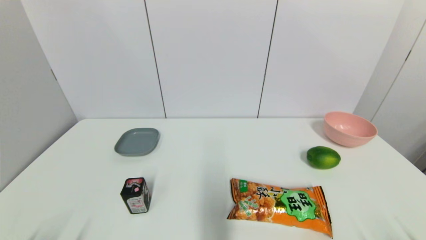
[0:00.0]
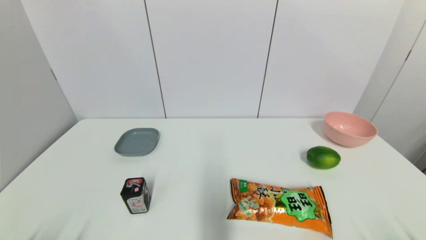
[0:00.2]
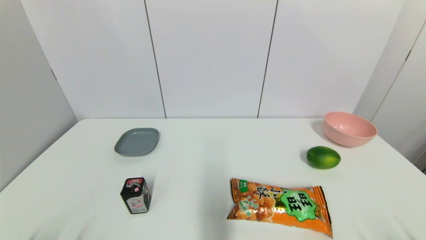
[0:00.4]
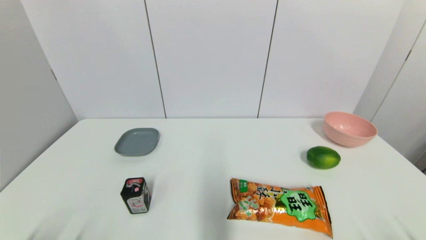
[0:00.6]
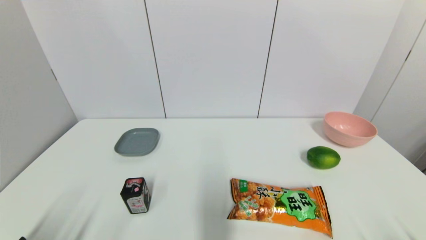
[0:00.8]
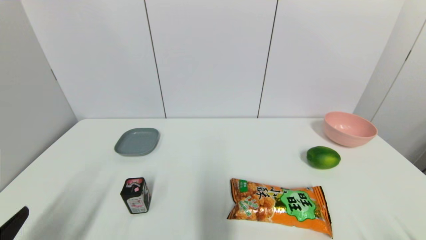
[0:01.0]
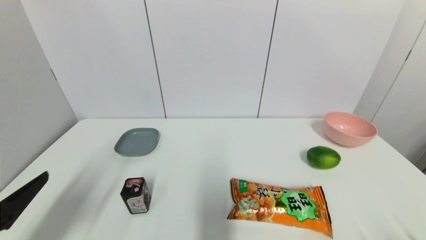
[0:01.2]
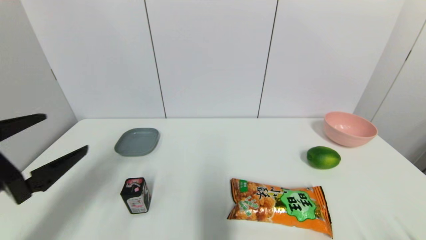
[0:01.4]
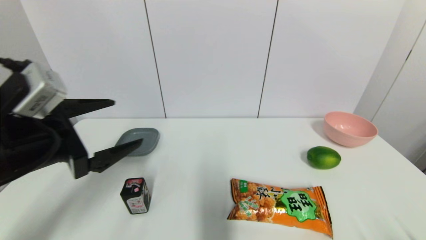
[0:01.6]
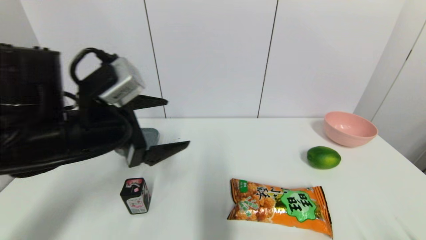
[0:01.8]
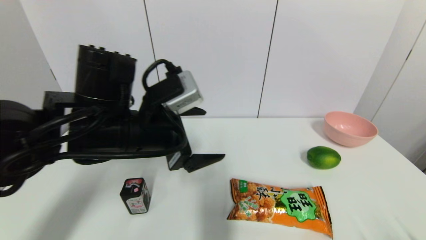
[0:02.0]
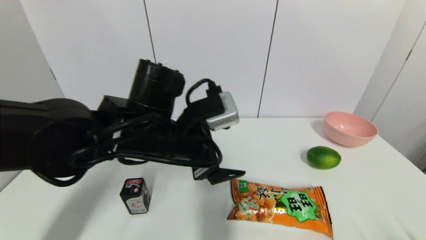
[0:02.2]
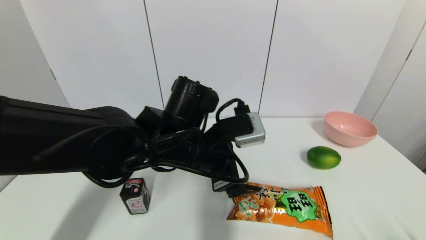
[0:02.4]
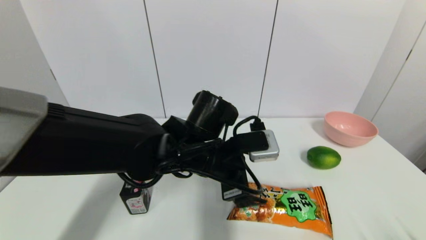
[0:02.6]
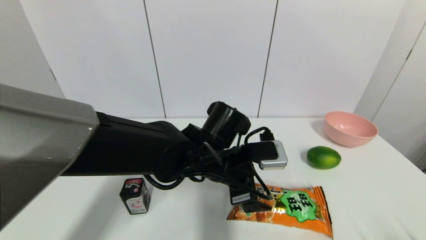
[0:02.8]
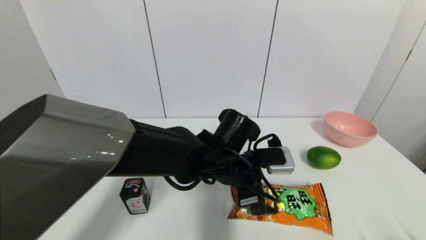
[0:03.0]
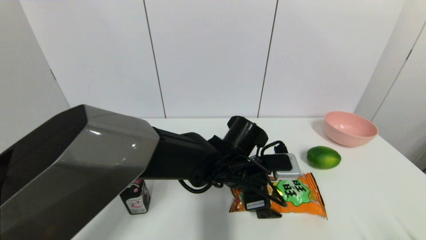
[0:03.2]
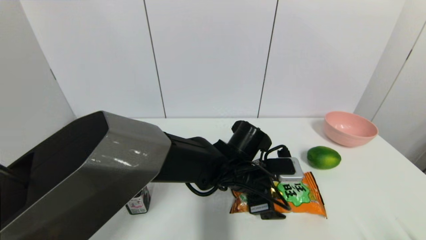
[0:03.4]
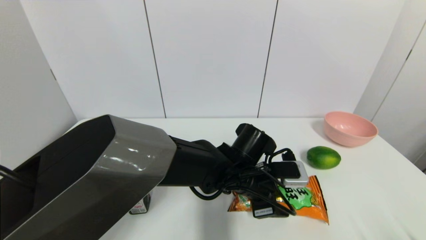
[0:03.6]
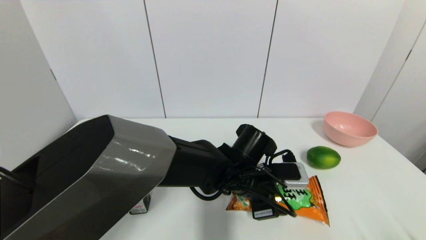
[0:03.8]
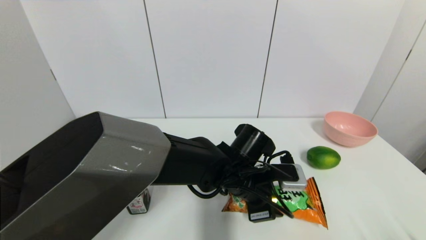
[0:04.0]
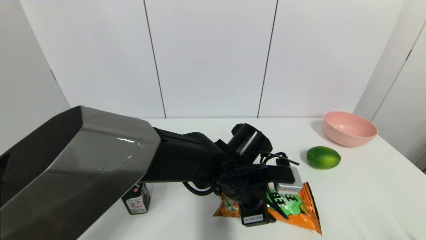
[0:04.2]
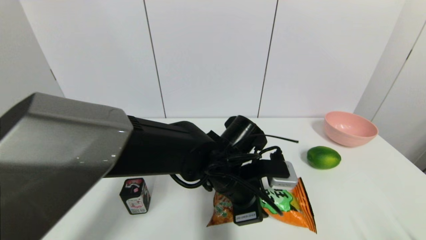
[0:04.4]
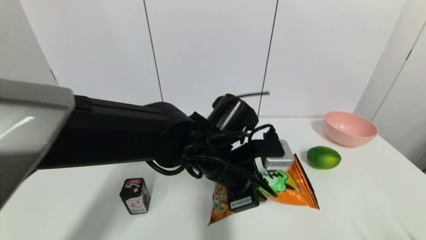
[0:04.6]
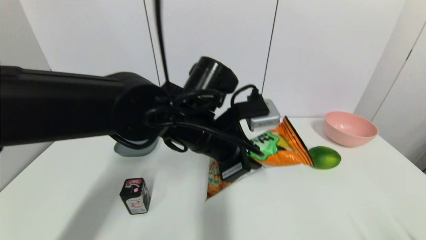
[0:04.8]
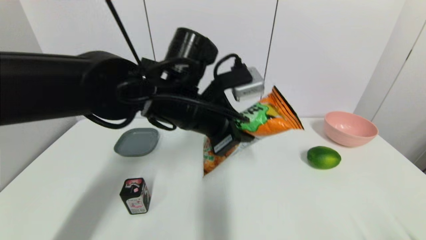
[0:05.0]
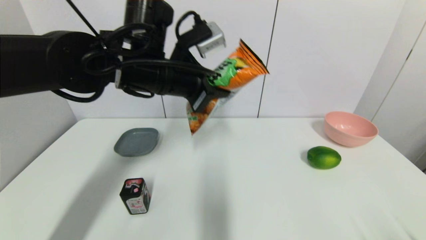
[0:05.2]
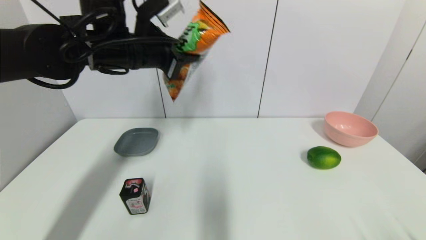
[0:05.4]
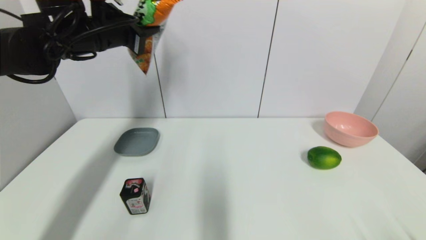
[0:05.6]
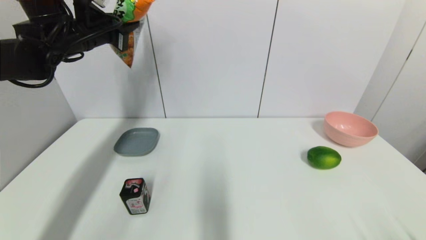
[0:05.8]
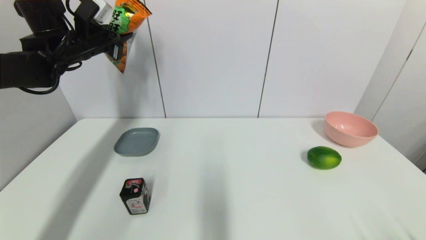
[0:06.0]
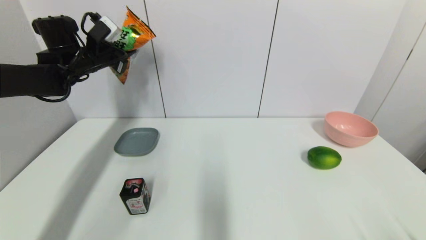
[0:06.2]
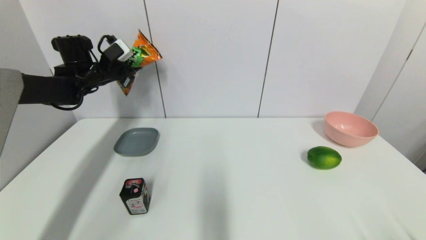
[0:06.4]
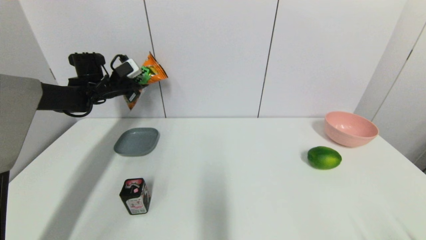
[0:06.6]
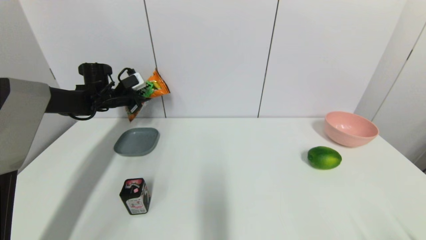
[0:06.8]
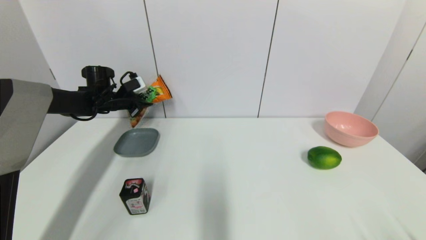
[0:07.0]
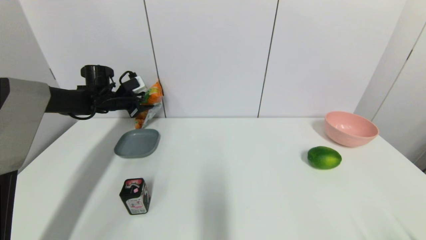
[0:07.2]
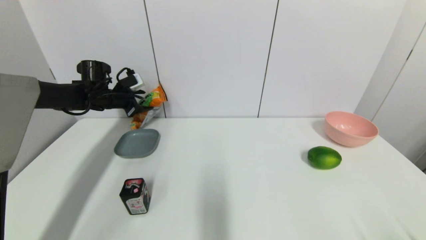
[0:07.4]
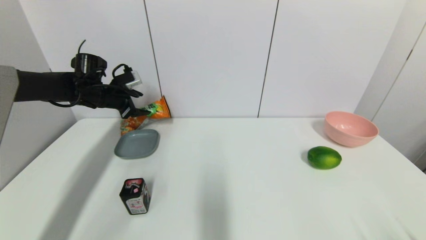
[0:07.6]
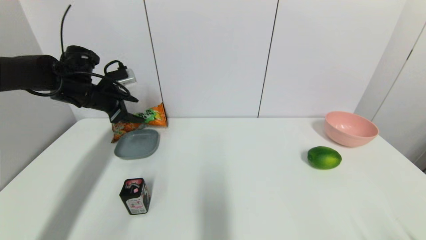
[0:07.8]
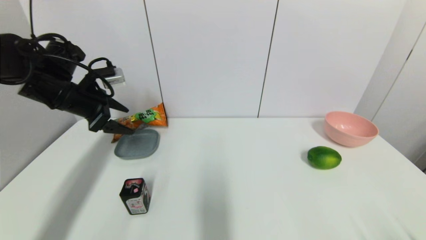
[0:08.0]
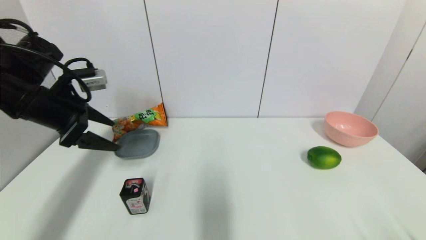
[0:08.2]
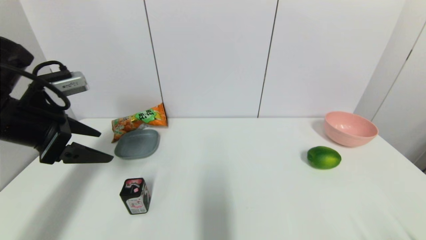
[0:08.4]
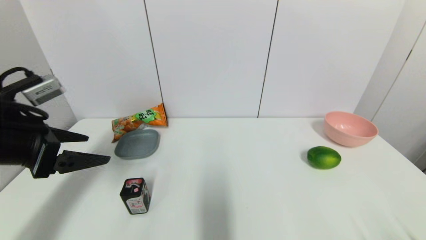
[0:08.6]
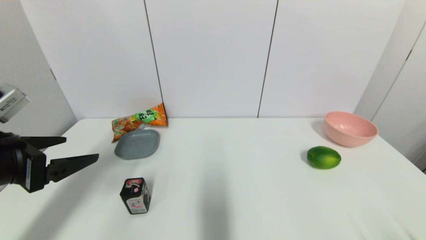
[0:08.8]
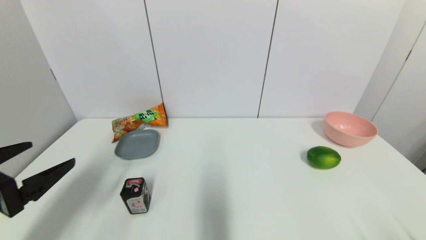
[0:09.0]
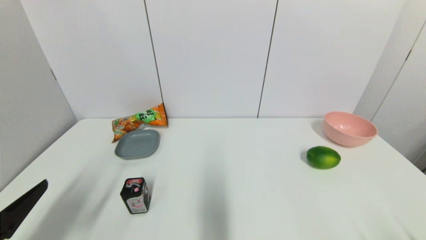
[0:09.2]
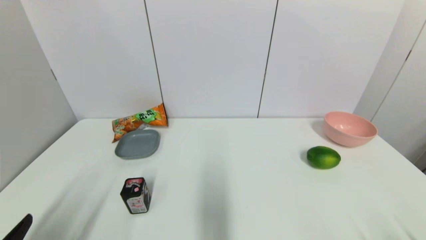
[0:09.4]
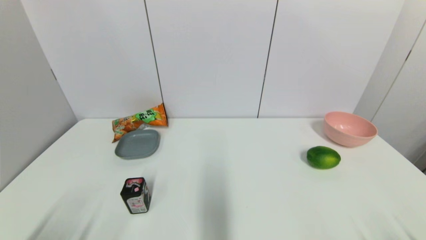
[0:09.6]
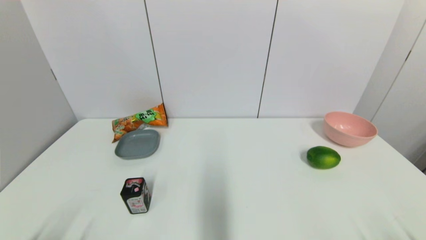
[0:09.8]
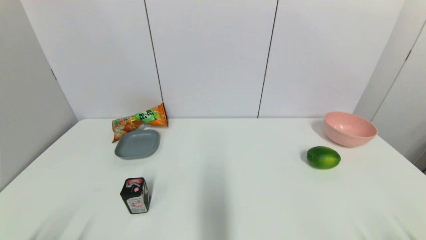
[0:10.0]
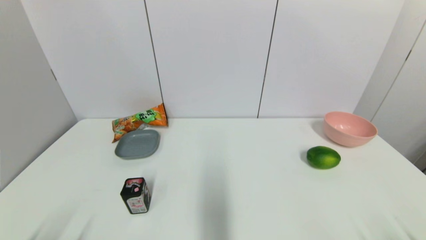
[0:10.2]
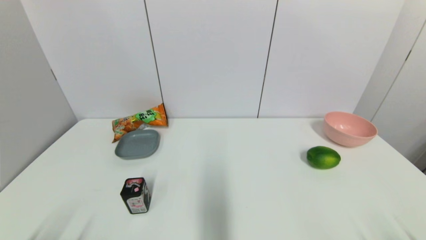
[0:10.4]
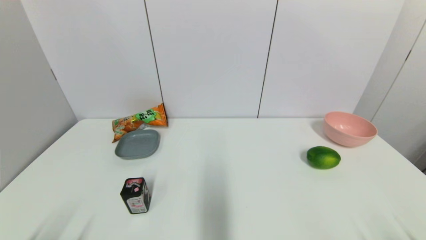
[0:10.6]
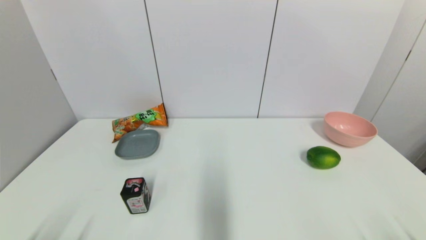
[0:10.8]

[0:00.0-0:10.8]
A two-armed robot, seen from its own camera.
Step, 0:00.8 to 0:04.2: Grasp the cookie with left gripper.
Step, 0:04.4 to 0:07.6: Place the cookie on the table with left gripper.
0:00.0 to 0:01.6: The left gripper heads forward and upward, covering approximately 25 cm.
0:01.6 to 0:03.0: The left gripper heads to the right and downward, covering roughly 30 cm.
0:03.0 to 0:04.6: The left gripper closes up.
0:04.6 to 0:06.2: The left gripper moves to the left and forward, about 35 cm.
0:06.2 to 0:07.8: The left gripper is displaced backward by about 5 cm, and opens its fingers.
0:07.8 to 0:09.2: The left gripper heads backward, covering some 35 cm.
0:09.2 to 0:10.8: The left gripper is displaced downward and backward by approximately 10 cm.

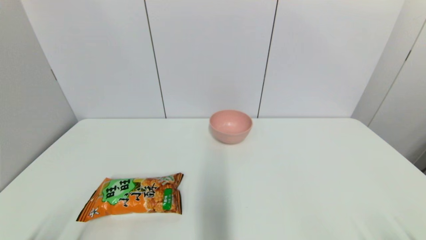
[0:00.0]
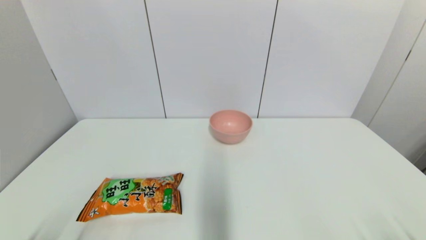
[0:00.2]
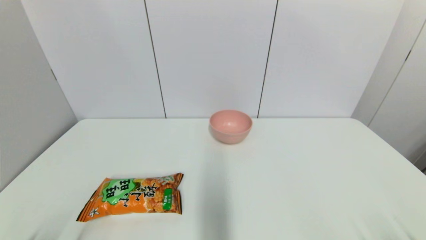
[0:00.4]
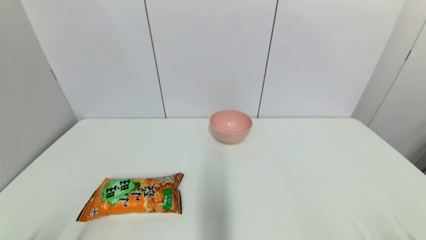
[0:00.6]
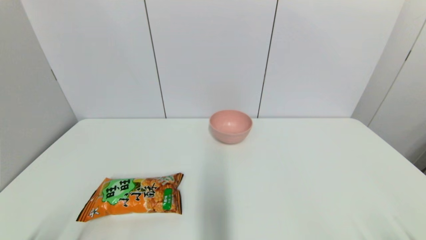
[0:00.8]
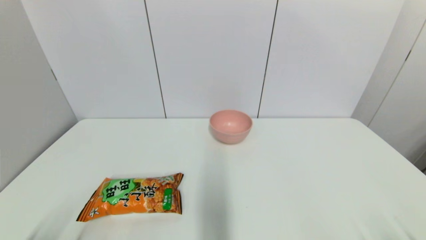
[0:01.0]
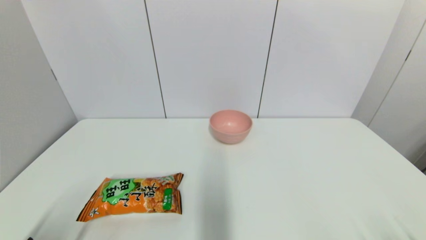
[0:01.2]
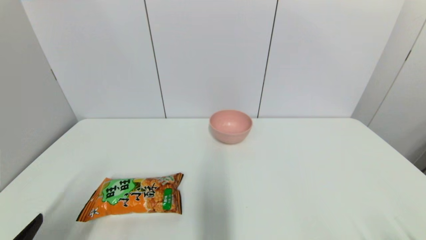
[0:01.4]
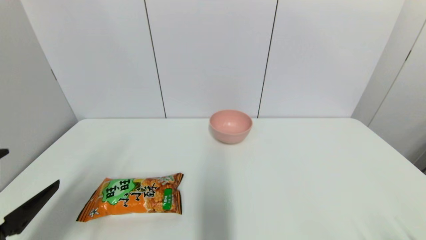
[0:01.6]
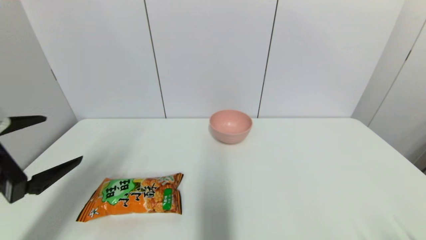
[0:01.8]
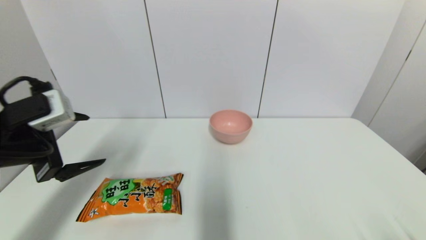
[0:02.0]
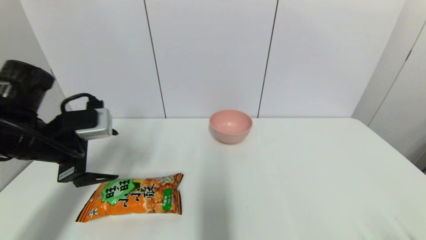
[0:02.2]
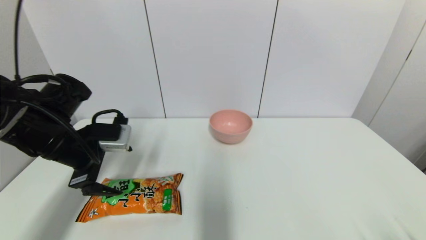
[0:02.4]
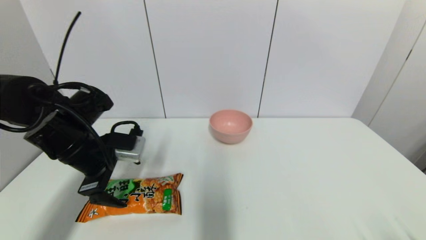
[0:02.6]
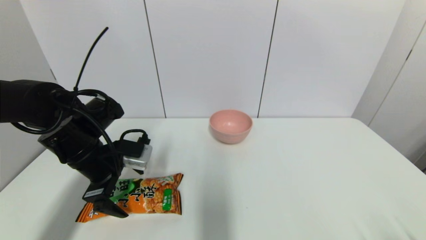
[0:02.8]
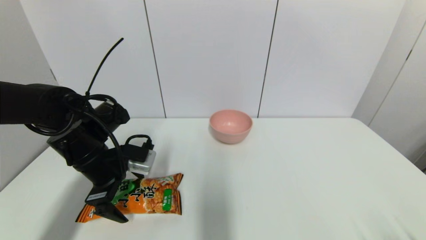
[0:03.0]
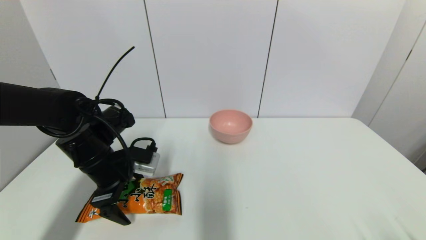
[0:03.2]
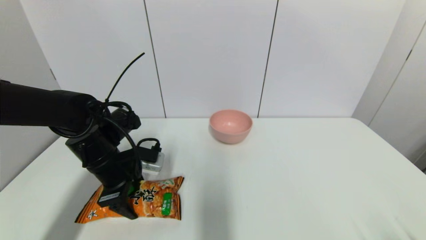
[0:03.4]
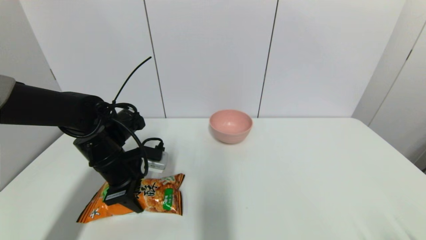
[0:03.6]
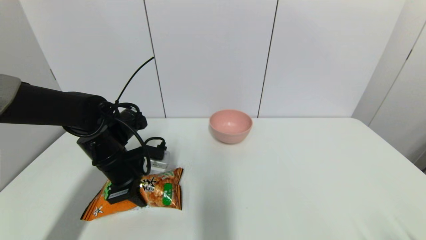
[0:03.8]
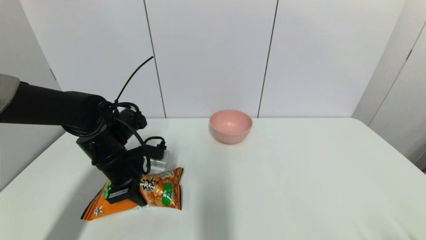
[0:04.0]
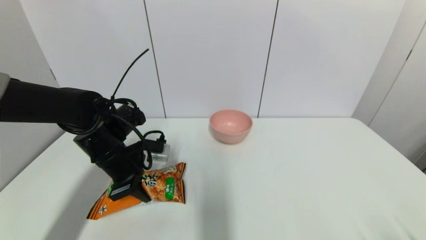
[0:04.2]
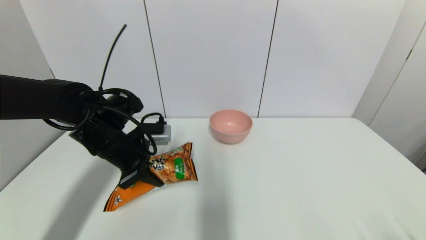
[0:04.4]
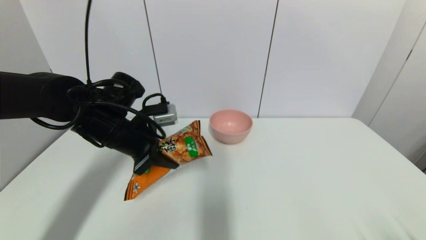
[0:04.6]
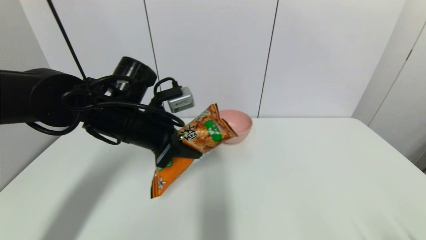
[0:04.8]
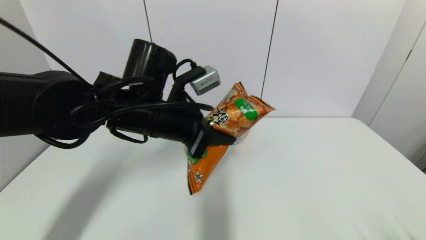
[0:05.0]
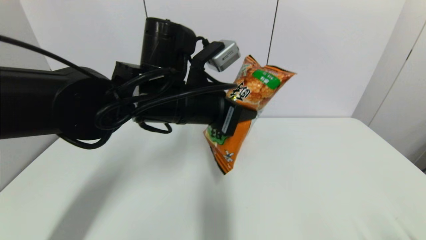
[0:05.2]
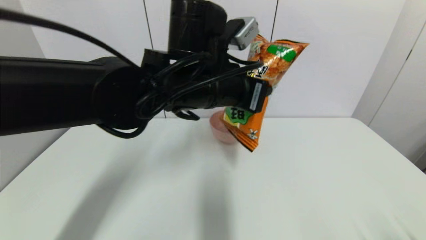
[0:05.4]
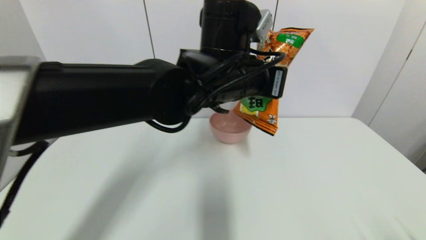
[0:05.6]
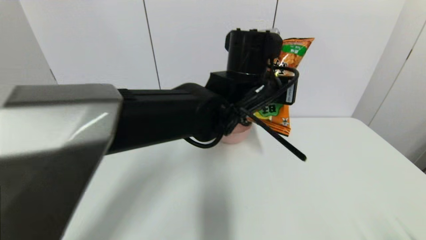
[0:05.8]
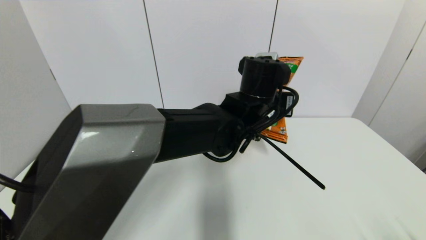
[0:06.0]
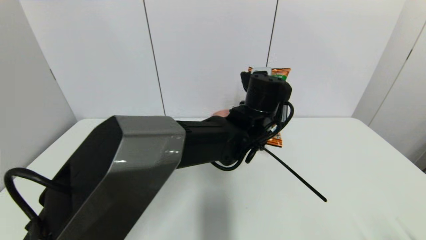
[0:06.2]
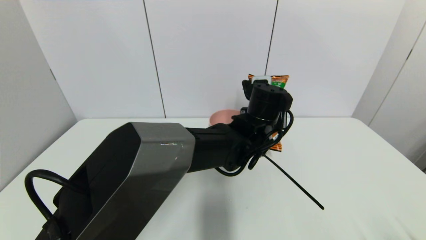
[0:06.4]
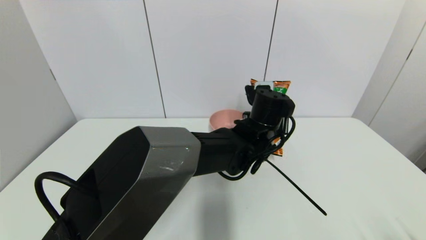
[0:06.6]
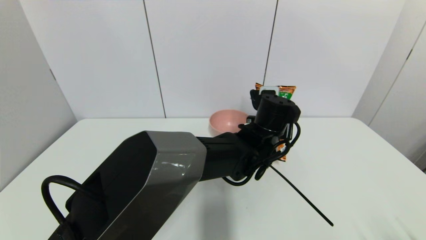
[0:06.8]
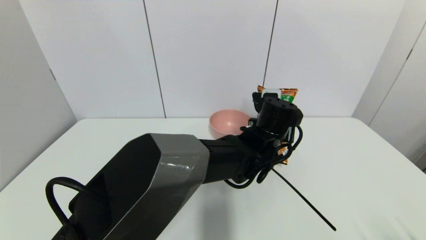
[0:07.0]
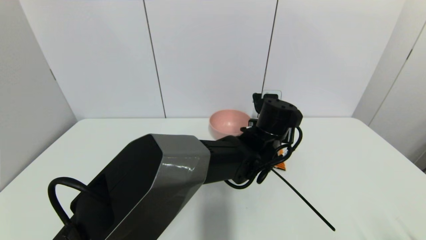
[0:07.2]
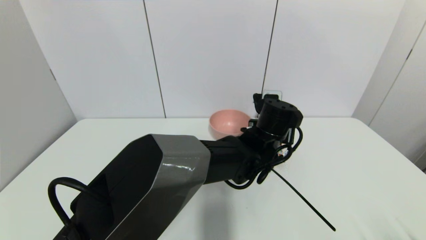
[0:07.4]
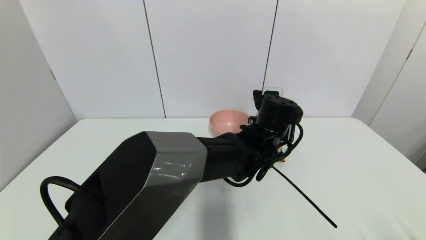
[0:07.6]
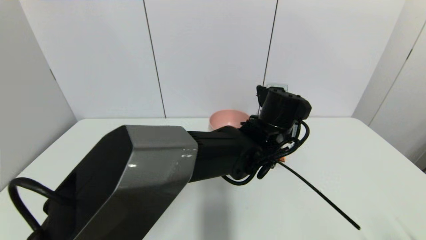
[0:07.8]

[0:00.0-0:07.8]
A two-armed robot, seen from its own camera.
Step, 0:01.4 to 0:03.8: Grasp the cookie with left gripper.
0:00.0 to 0:01.6: The left gripper heads upward and forward, covering some 15 cm.
0:01.6 to 0:03.2: The left gripper shifts about 20 cm forward and to the right.
0:03.2 to 0:04.6: The left gripper changes place by about 5 cm, and closes.
0:04.6 to 0:06.2: The left gripper is displaced to the right by approximately 25 cm.
0:06.2 to 0:07.8: The left gripper opens.
